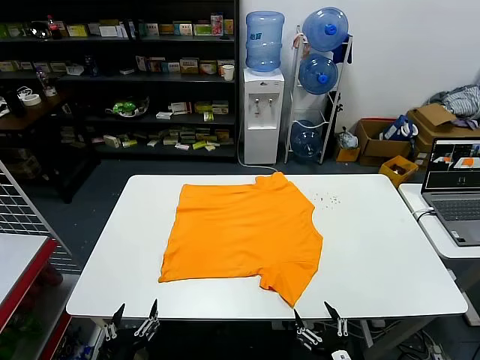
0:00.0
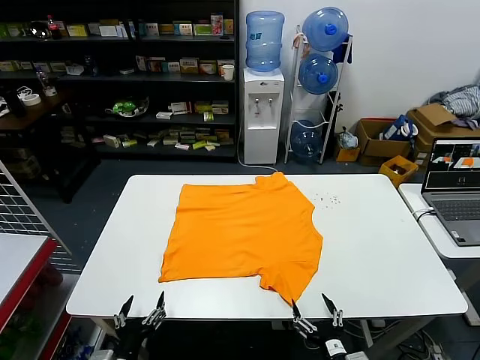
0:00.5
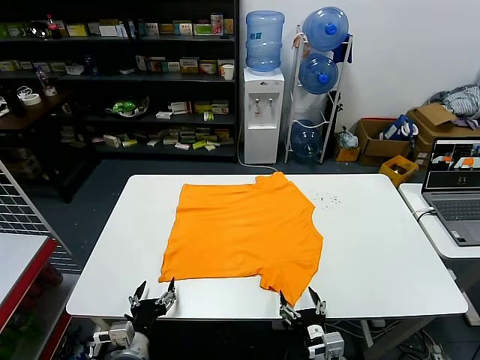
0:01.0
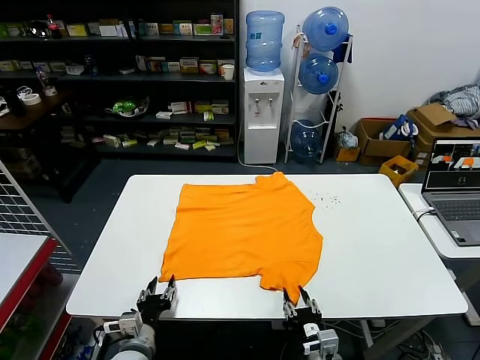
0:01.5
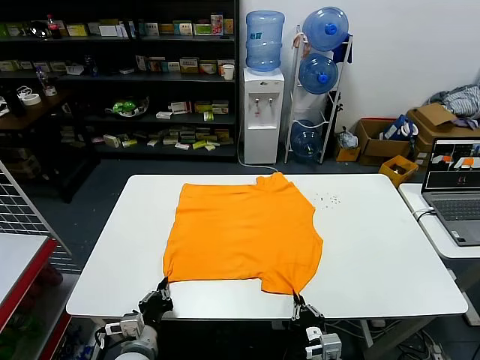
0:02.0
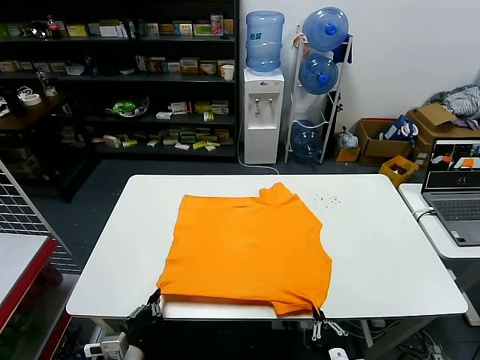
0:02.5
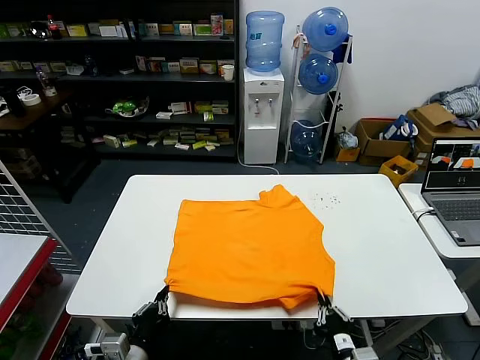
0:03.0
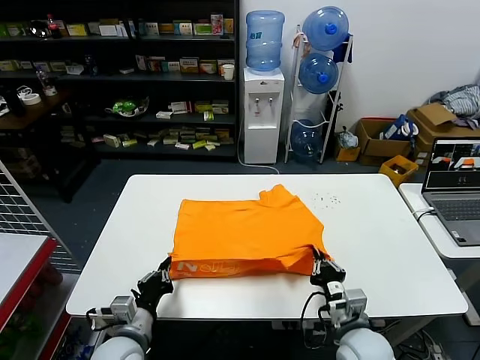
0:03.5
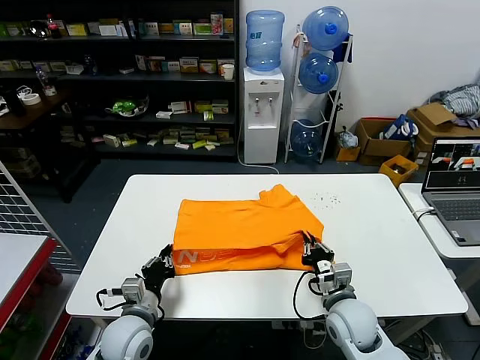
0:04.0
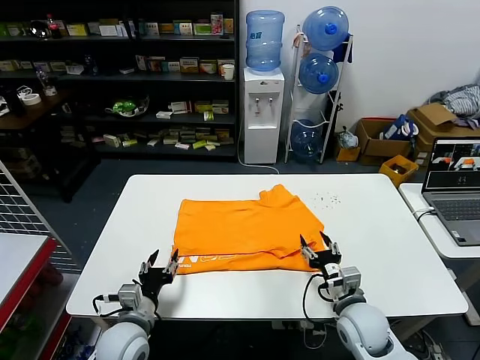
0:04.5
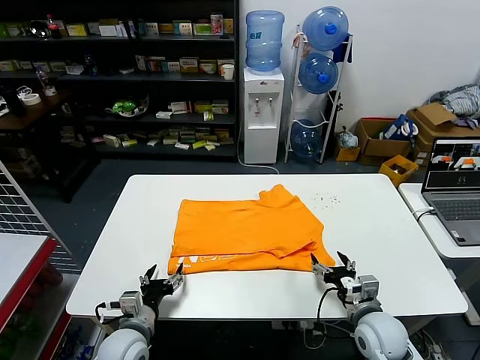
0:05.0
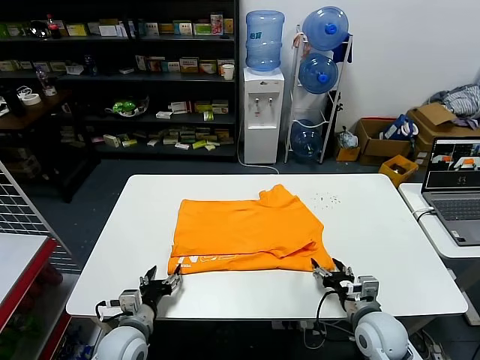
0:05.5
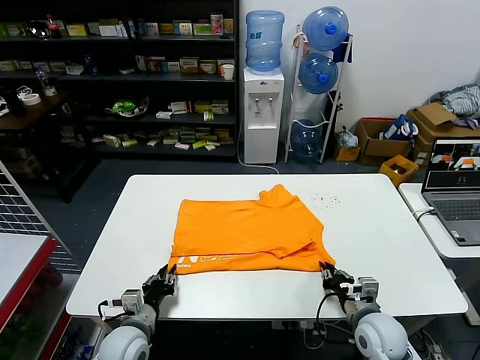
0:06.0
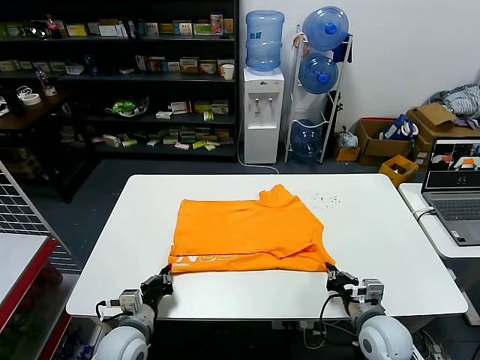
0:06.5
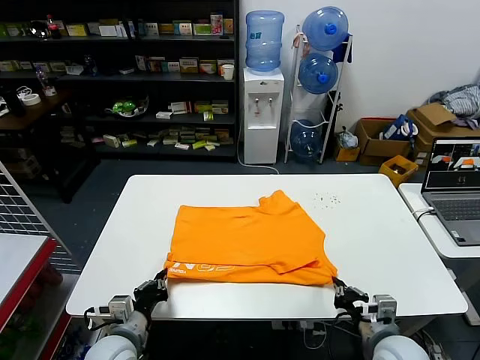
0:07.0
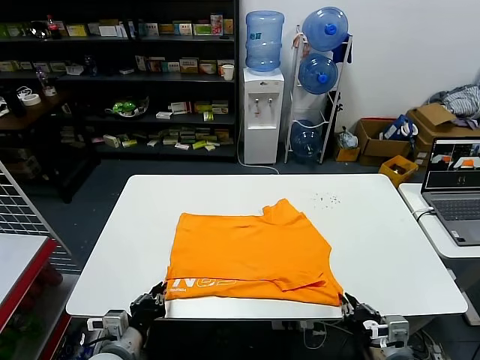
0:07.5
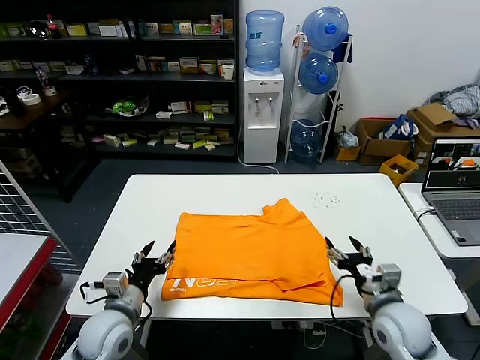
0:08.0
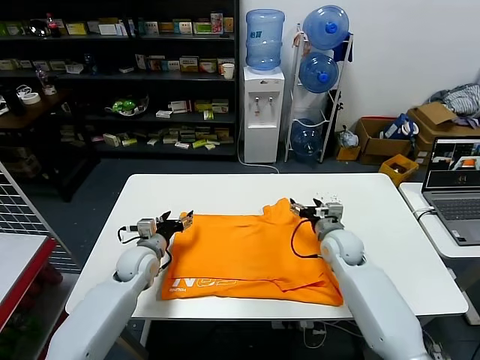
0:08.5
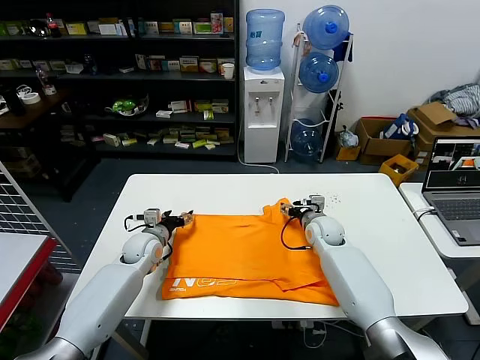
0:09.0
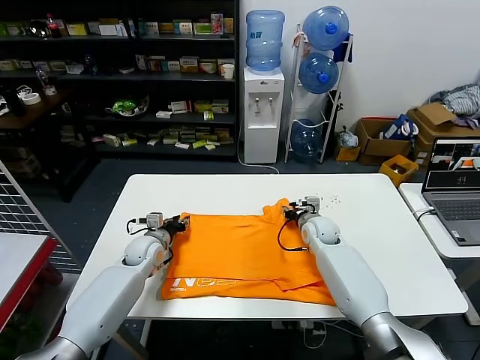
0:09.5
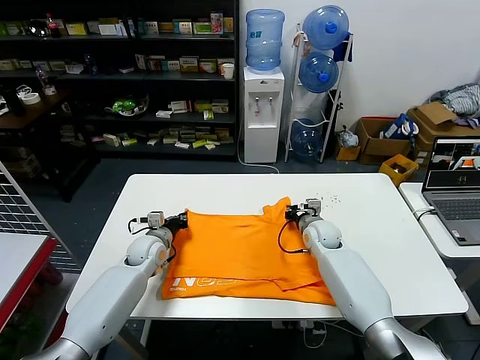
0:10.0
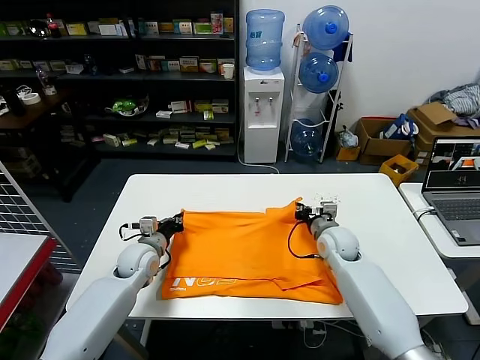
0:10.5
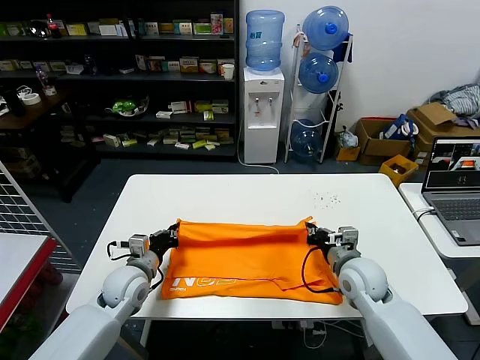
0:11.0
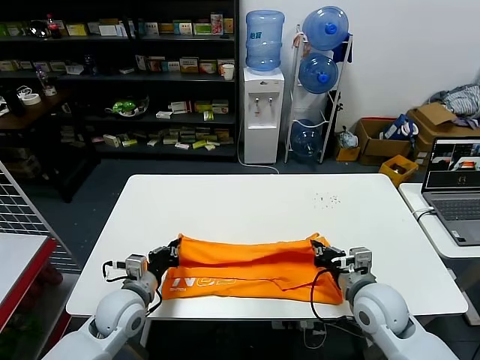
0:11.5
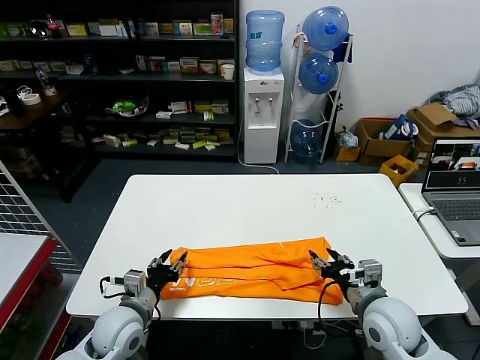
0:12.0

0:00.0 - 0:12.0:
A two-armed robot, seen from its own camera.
Task of the whole recording: fold and organize the clothes.
Step, 0:00.0 - 0:01.5: use both grippers simultaneously to clamp the lower edge of the clothing fabric.
Step, 0:02.0 - 0:04.0: use both grippers to drag the lower edge of the fabric forward and fold it over the upper edge.
Step, 0:04.5 - 0:07.5: Drag the clothes downward with both gripper.
Step, 0:08.0 - 0:09.5: use both grippers simultaneously to clamp the upper edge of the clothing fabric.
Step, 0:10.0 - 0:11.5: use both grippers to drag the upper edge of the fabric backward and fold it over the lower edge.
0:02.0 - 0:04.0: The left gripper goes approximately 5 cm upward; the right gripper moves forward and upward, approximately 15 cm.
0:04.0 - 0:06.0: The right gripper heads to the right, covering about 5 cm, and opens, then closes again. The left gripper opens, then closes again.
0:06.0 - 0:08.0: Both grippers move upward, roughly 5 cm. The left gripper opens; the right gripper reaches some 10 cm backward, then returns, and opens.
0:08.0 - 0:10.0: Both grippers move forward, approximately 25 cm. The right gripper closes. The left gripper closes.
0:10.0 - 0:12.0: The grippers both shift backward by approximately 20 cm. The left gripper opens. The right gripper opens.

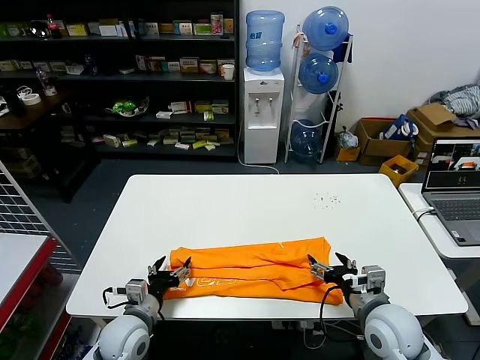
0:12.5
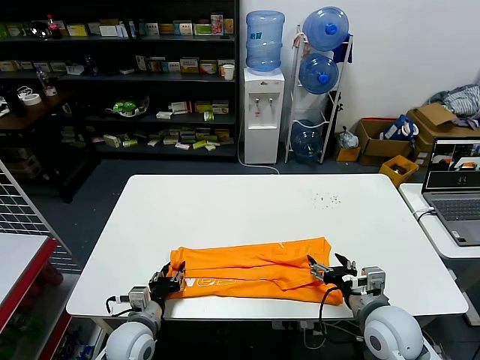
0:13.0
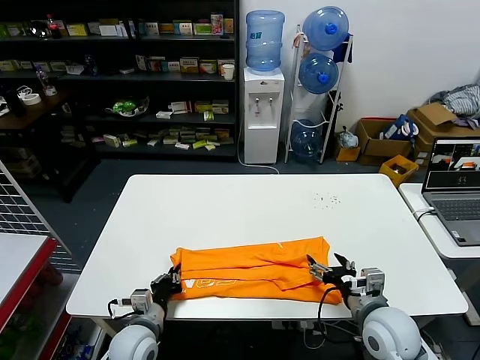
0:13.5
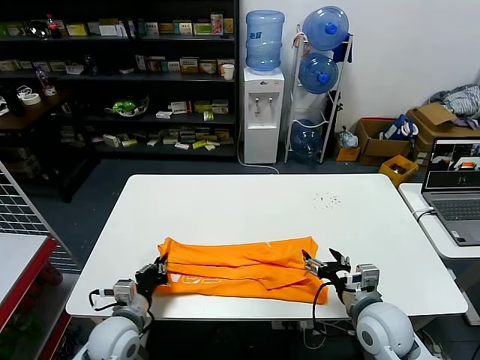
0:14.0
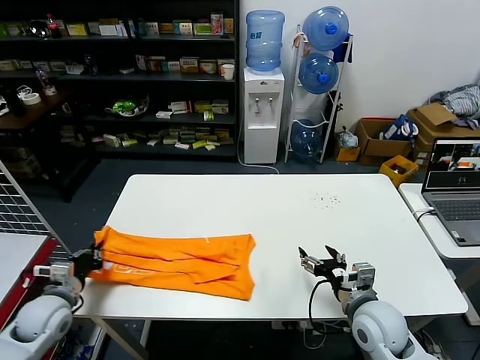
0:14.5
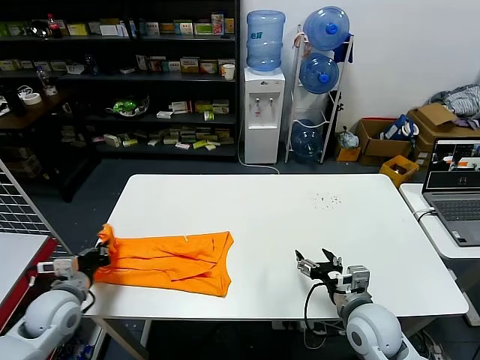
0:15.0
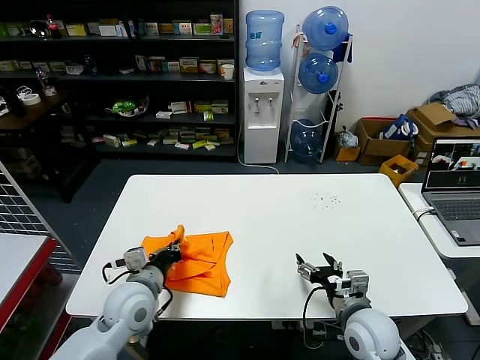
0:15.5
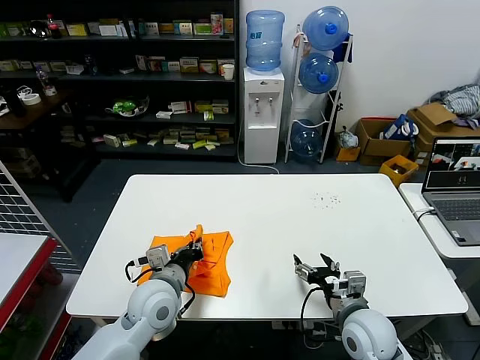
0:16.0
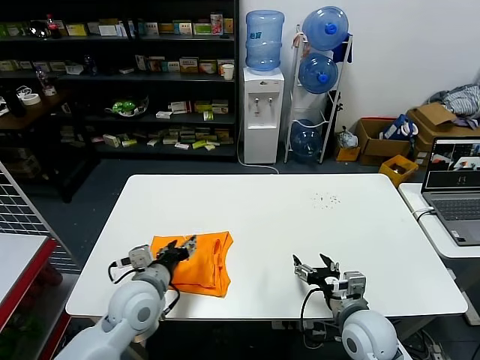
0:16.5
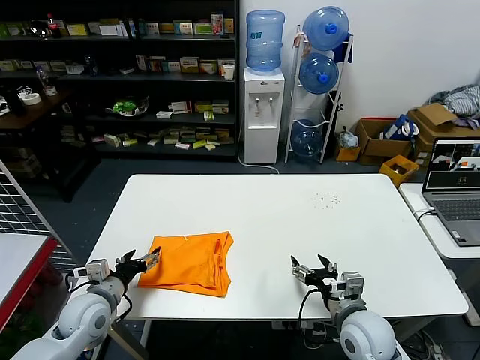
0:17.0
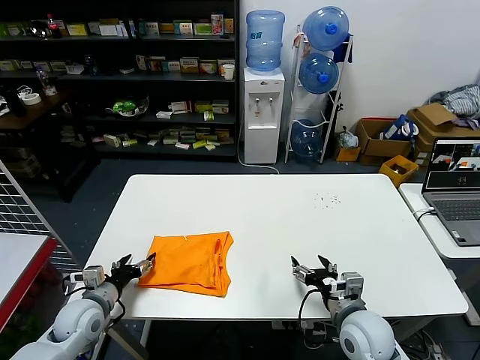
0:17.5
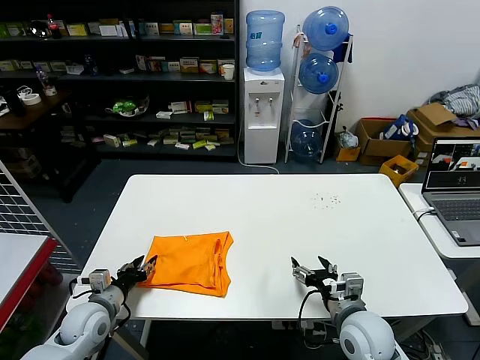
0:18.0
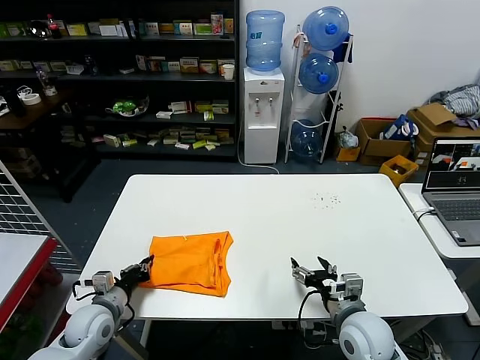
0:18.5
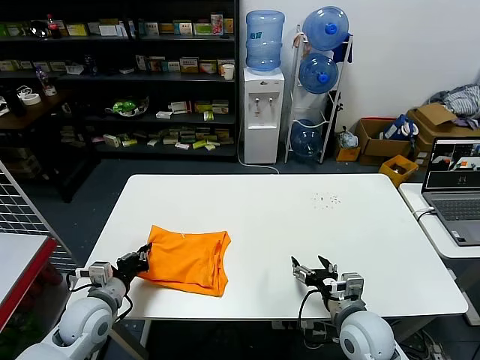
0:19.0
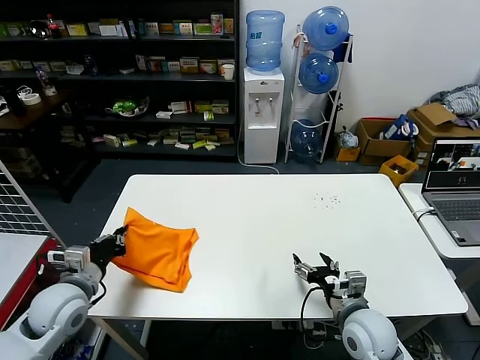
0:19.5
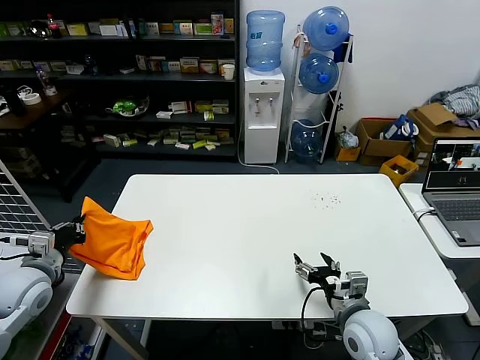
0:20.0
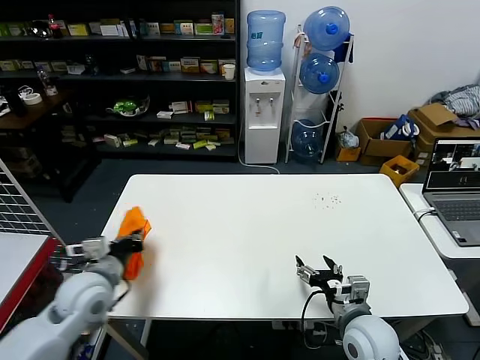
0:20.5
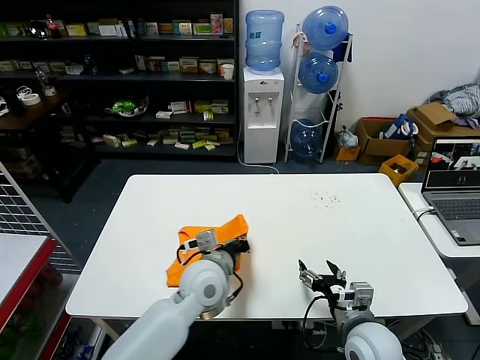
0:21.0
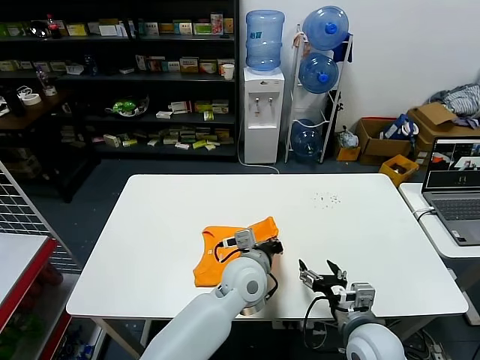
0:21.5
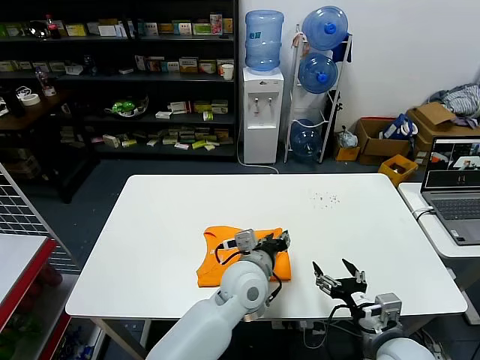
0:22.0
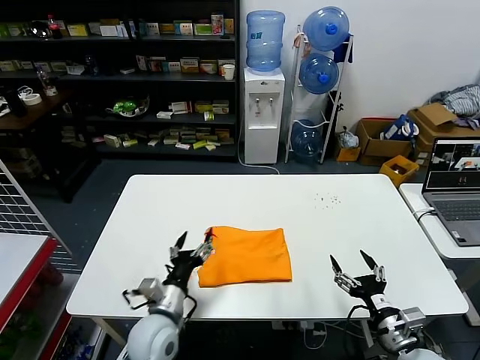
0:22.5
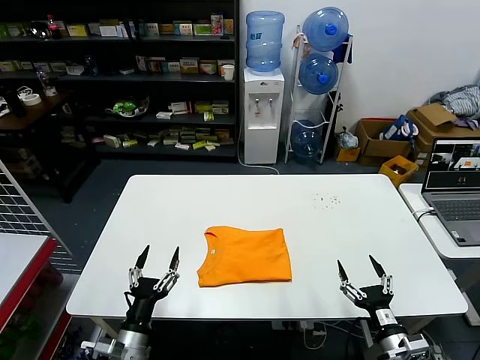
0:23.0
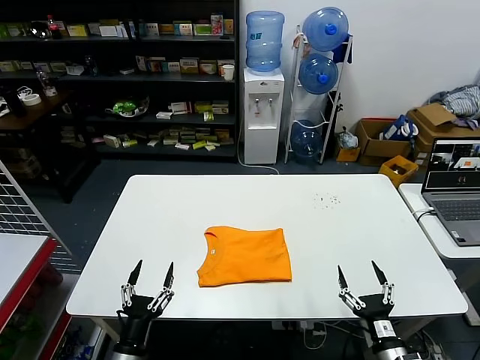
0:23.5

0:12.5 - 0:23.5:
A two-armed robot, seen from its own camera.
Task of the whole recording: fold and organize the clothes.
Step, 0:13.5 - 0:16.0: use the left gripper to drag the left edge of the fabric to the left and folds it over the right edge.
Step, 0:16.5 - 0:21.5: Flip the folded clothes over with left gripper.
0:12.5 - 0:14.5: The left gripper moves to the left, some 15 cm, and closes up.
0:14.5 - 0:16.0: The left gripper travels to the right by approximately 20 cm.
0:16.0 - 0:18.0: The left gripper heads to the left and downward, covering about 20 cm, and opens up.
0:18.0 - 0:20.0: The left gripper shifts approximately 15 cm upward and to the left, and closes.
0:20.0 - 0:21.5: The left gripper moves to the right, about 40 cm.
0:21.5 - 0:23.5: The left gripper shifts roughly 35 cm to the left, backward and downward, and opens. Meanwhile the right gripper shifts some 15 cm backward, to the right and downward.

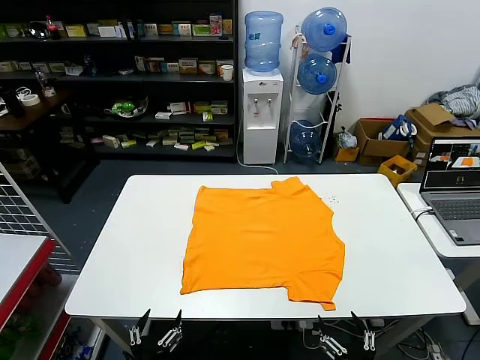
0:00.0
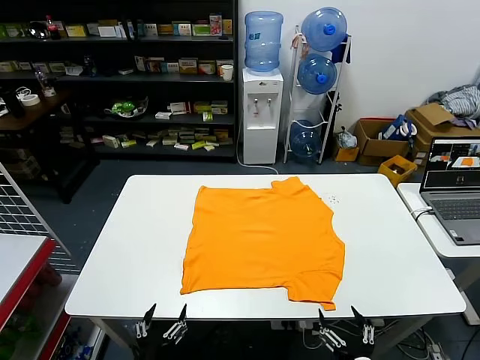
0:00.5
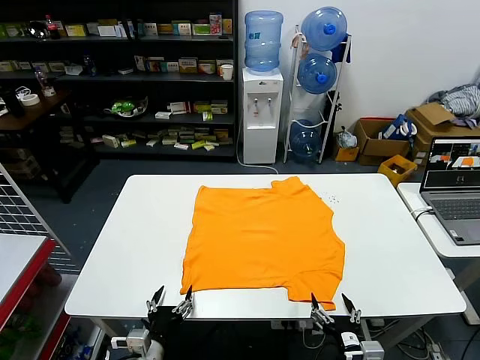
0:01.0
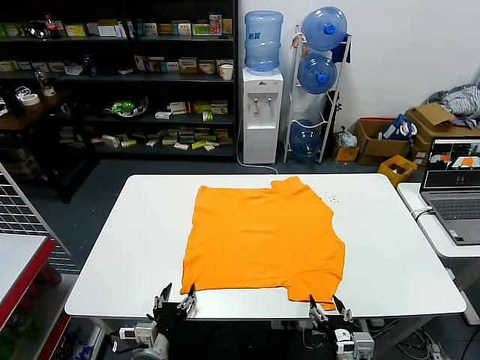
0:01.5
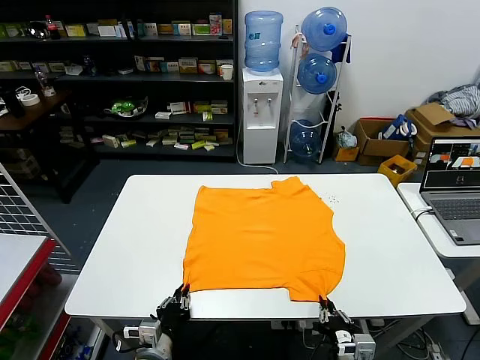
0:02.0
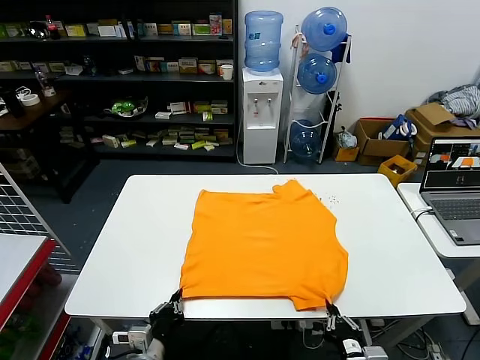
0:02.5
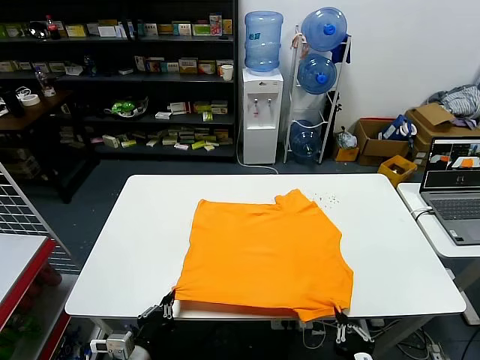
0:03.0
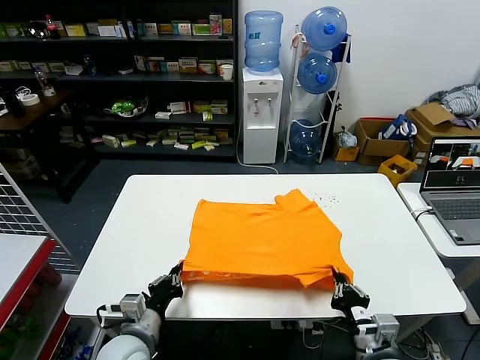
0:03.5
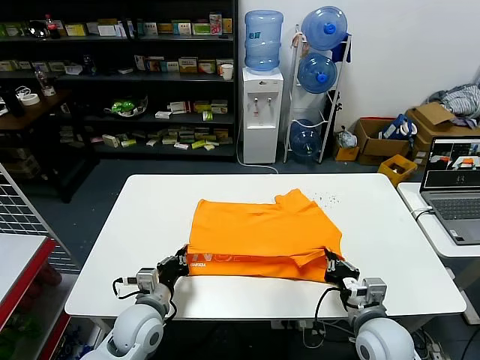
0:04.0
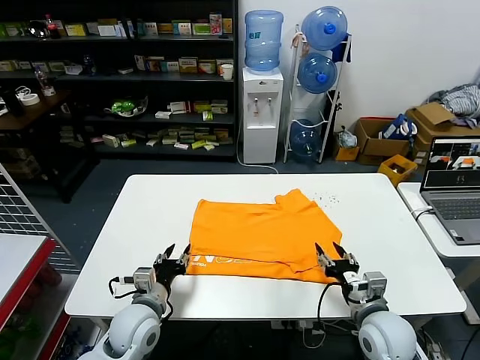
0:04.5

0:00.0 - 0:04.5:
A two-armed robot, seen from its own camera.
Task of the whole recording: fold and organize the clothes.
Step, 0:00.0 - 0:02.0: use both grippers simultaneously to clamp the lower edge of the clothing fabric.
Step, 0:02.5 - 0:04.0: use both grippers to drag the lower edge of the fabric forward and fold it over the upper edge.
0:02.0 - 0:04.5: Both grippers move forward and upward, about 10 cm. The left gripper opens its fingers; the right gripper opens up.
